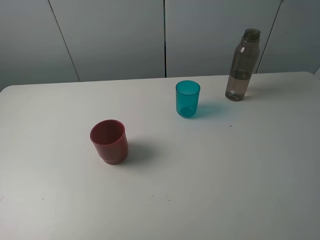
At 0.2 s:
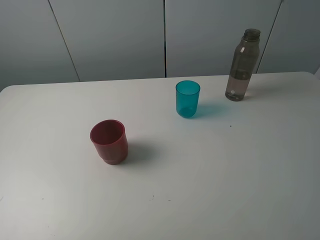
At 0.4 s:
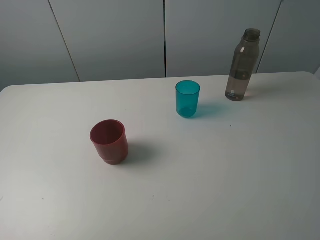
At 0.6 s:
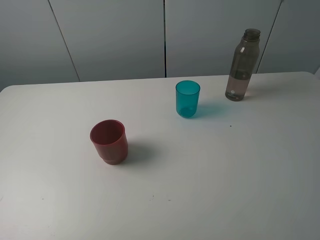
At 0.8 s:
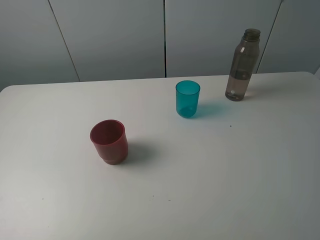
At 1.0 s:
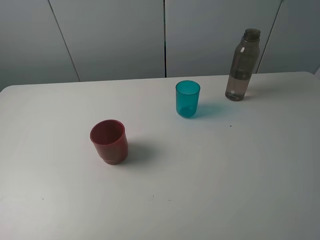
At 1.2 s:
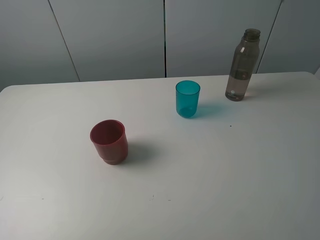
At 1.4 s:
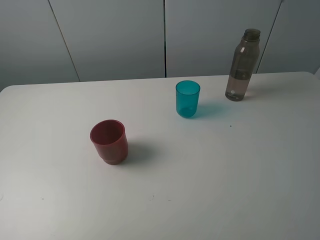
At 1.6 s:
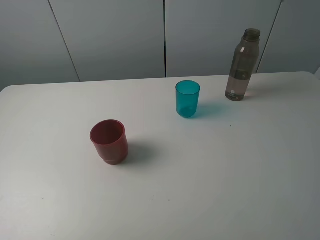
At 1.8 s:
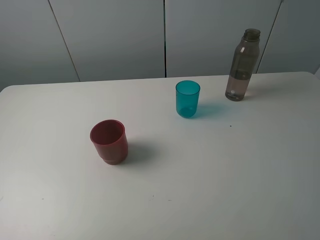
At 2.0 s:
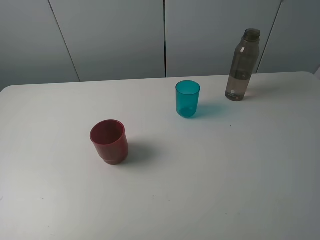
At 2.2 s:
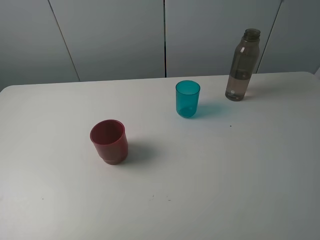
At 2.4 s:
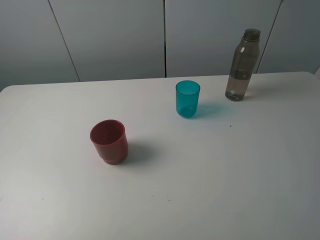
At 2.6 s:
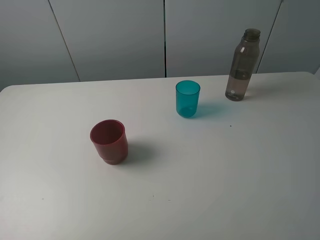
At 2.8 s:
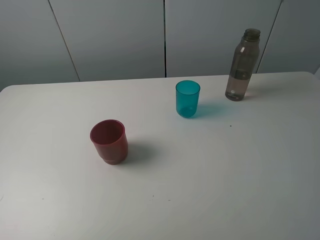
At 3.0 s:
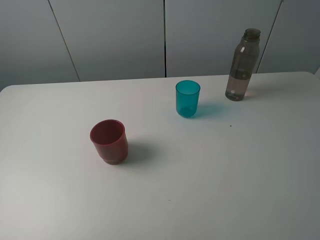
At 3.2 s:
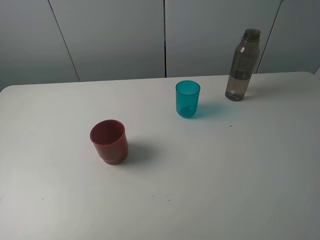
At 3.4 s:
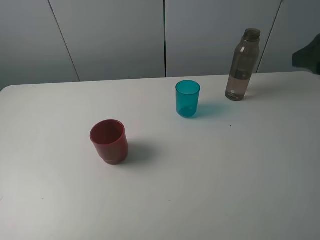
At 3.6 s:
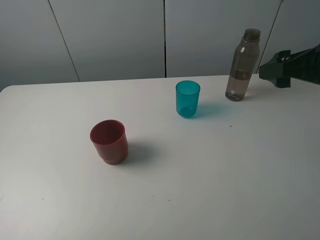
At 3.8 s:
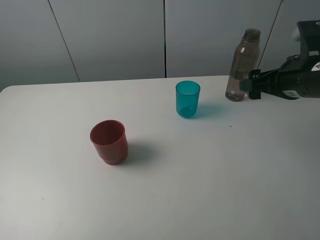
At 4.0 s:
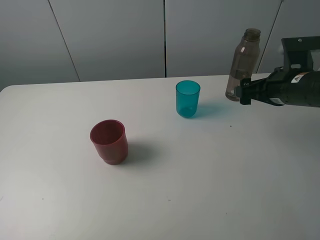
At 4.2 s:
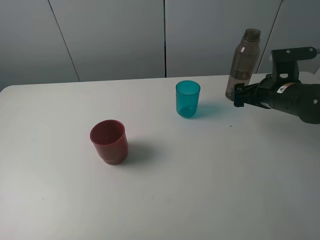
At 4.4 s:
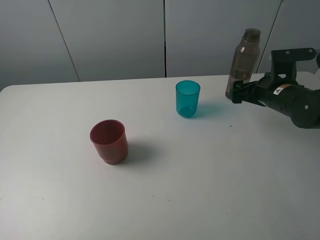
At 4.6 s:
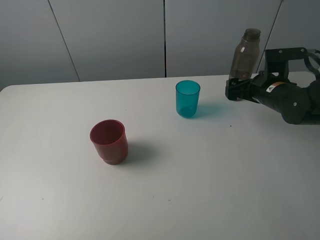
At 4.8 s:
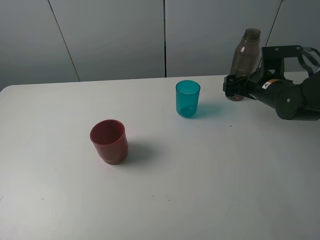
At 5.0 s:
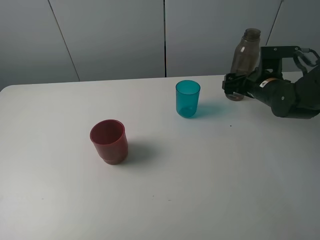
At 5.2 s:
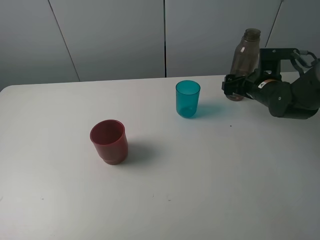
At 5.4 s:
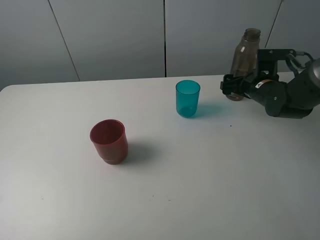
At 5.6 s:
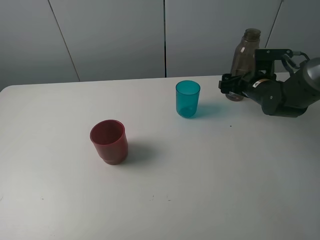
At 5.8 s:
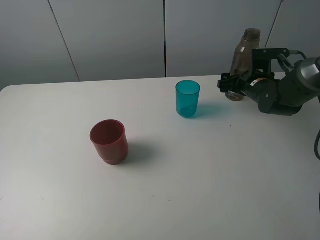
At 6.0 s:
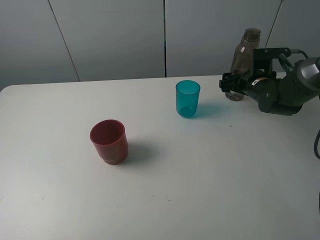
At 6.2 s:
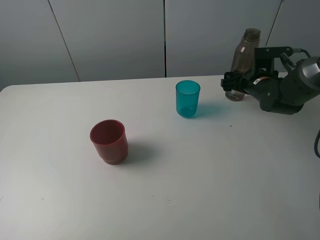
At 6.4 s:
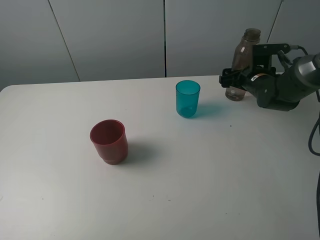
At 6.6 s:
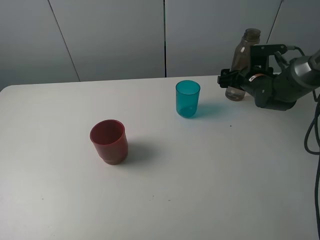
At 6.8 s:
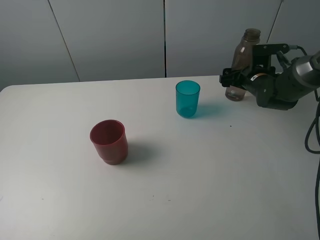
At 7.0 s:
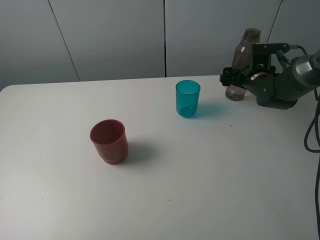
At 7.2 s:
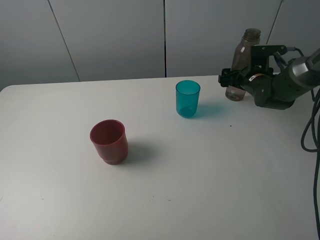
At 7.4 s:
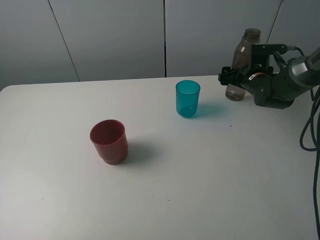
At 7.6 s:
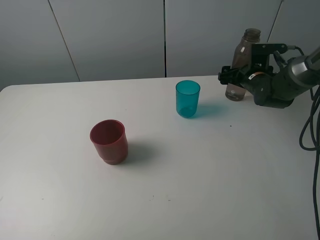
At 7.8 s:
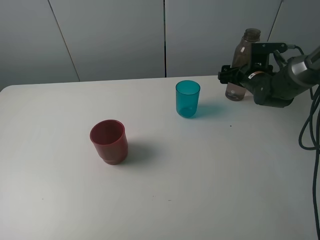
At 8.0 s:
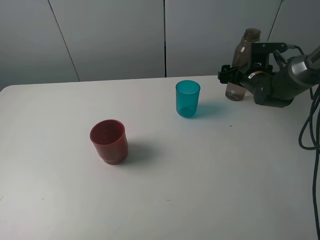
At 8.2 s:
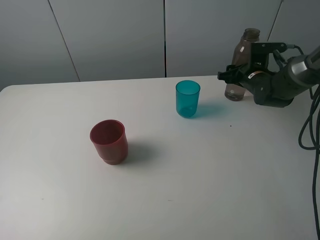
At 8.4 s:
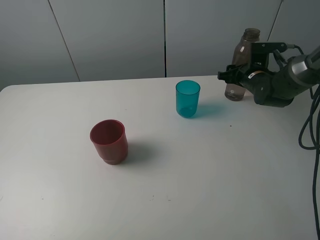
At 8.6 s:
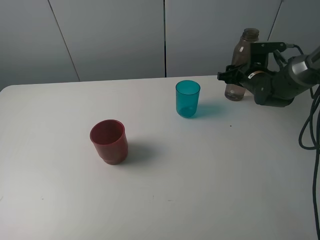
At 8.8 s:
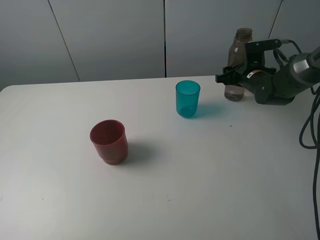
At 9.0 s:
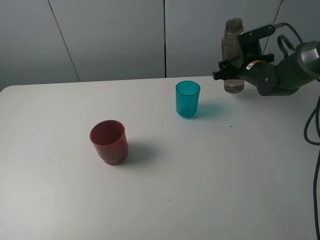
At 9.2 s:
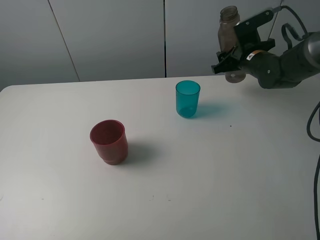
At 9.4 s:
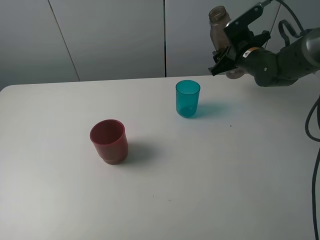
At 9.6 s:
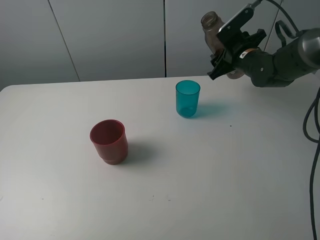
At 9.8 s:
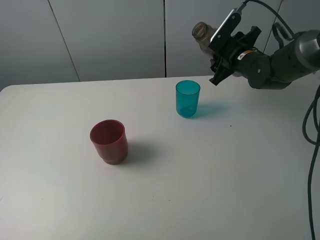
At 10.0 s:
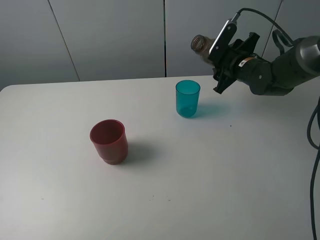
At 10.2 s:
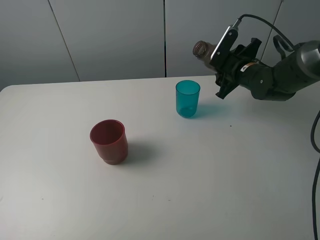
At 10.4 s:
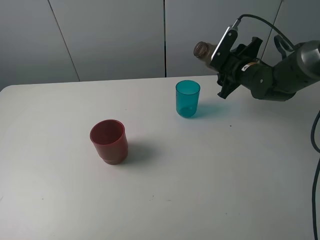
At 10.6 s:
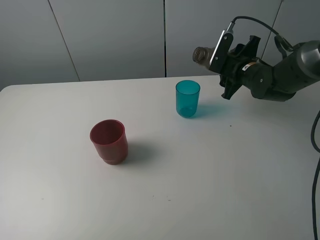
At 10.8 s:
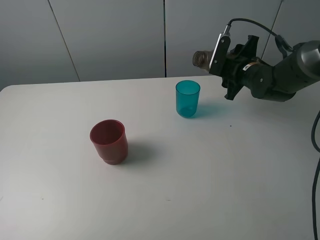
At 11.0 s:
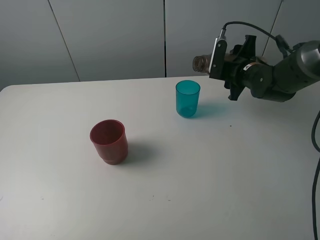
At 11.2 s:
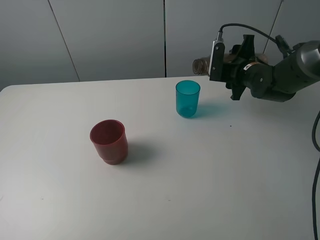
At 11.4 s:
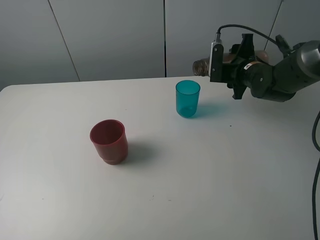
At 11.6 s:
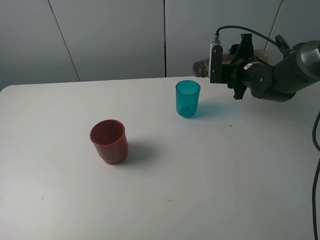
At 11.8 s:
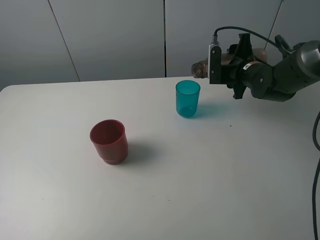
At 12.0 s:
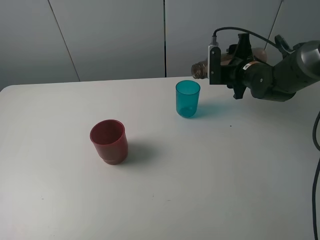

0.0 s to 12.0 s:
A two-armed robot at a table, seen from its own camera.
Task of the whole recording: pick up the bottle and pour water into the cup, then pick up the cup containing water and pour it into another cup.
Step, 0.0 to 8.4 s: Grasp the brown bottle with the right gripper.
0.0 to 1.6 s: Both grippers stay put.
3.0 to 4.4 s: The right gripper travels downward and forward by approximately 30 cm.
4.4 to 6.0 s: The right gripper shifts about 5 cm forward.
6.0 to 7.6 s: The grippers stay close to where they were, moving slightly.
7.6 to 9.0 s: The right gripper closes its fingers.

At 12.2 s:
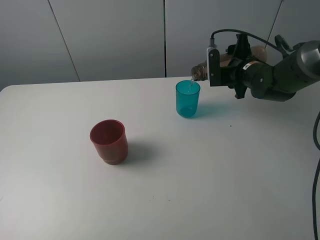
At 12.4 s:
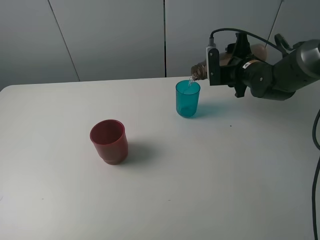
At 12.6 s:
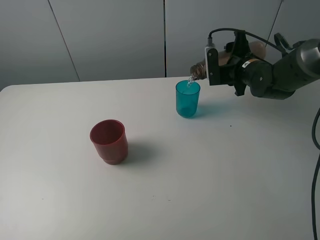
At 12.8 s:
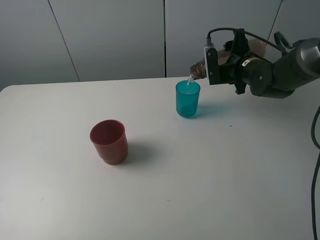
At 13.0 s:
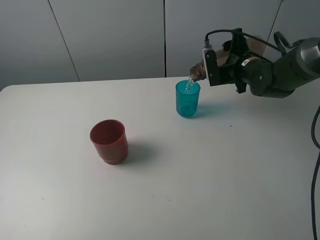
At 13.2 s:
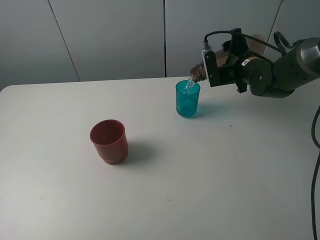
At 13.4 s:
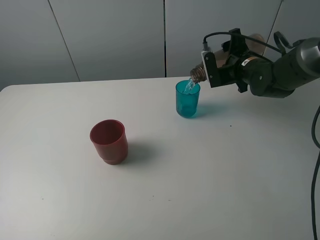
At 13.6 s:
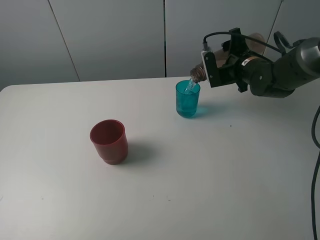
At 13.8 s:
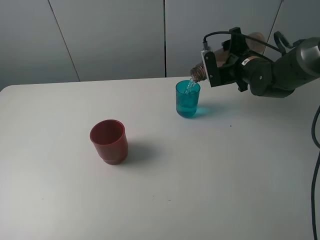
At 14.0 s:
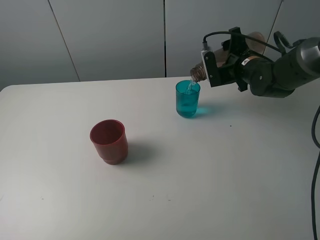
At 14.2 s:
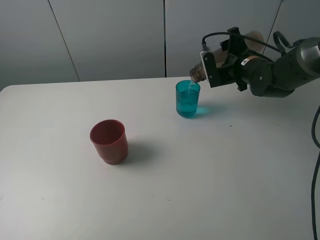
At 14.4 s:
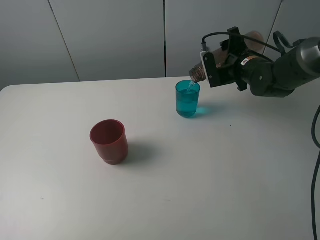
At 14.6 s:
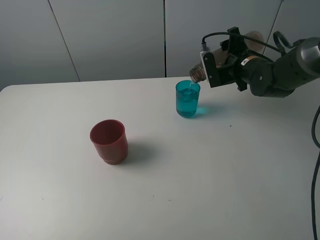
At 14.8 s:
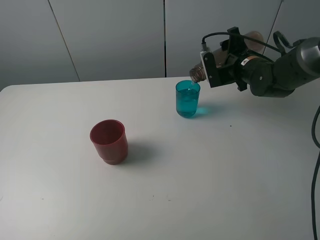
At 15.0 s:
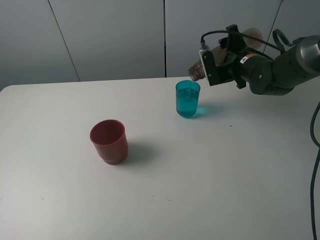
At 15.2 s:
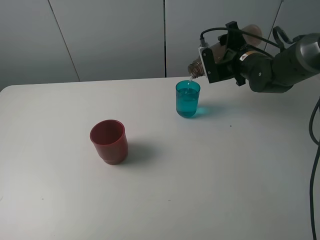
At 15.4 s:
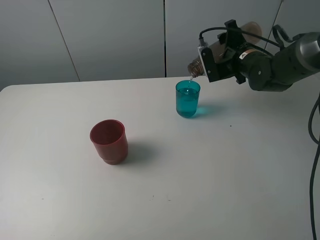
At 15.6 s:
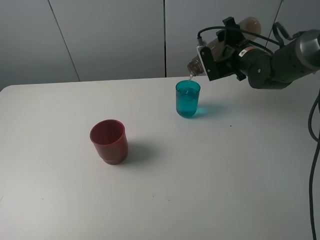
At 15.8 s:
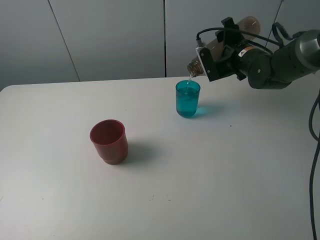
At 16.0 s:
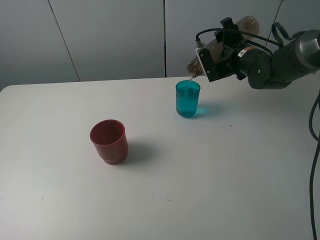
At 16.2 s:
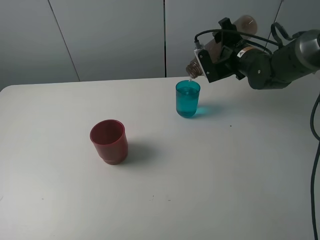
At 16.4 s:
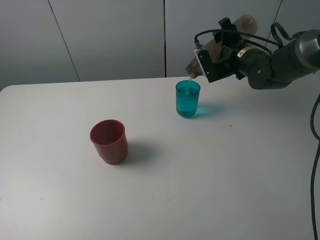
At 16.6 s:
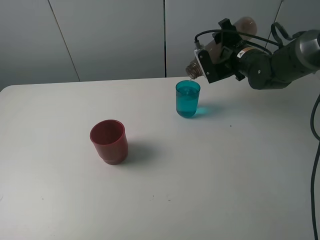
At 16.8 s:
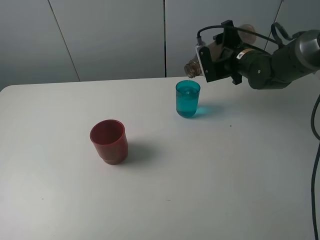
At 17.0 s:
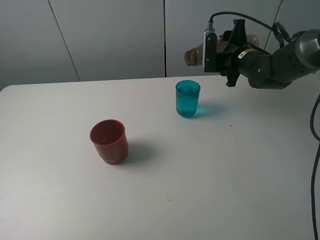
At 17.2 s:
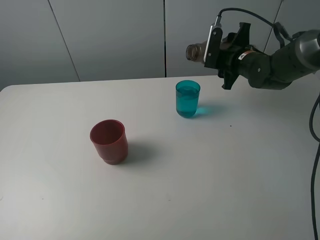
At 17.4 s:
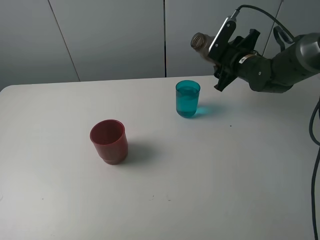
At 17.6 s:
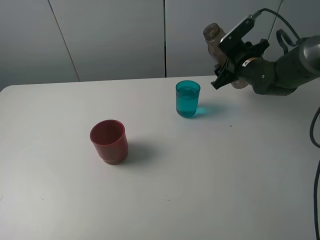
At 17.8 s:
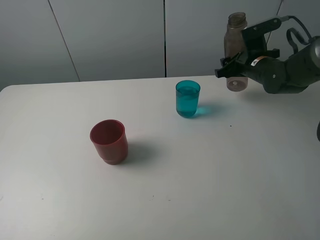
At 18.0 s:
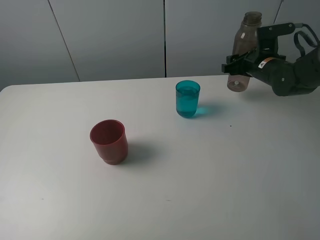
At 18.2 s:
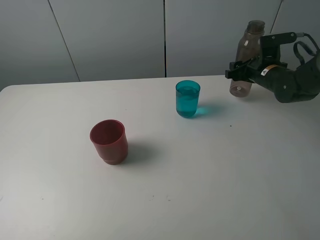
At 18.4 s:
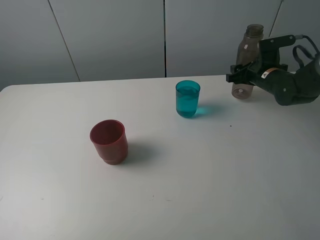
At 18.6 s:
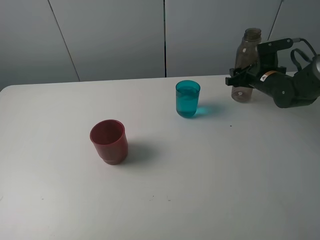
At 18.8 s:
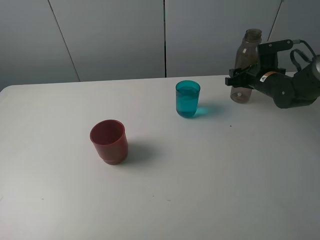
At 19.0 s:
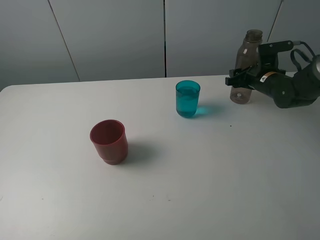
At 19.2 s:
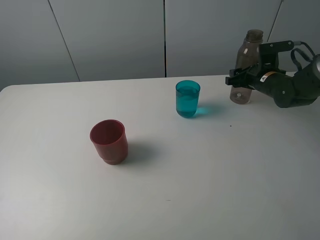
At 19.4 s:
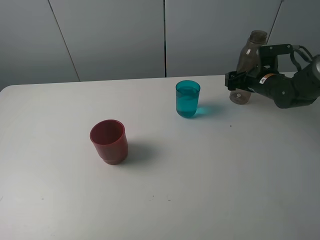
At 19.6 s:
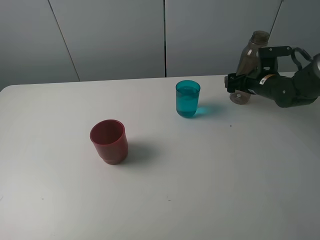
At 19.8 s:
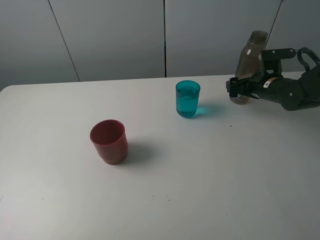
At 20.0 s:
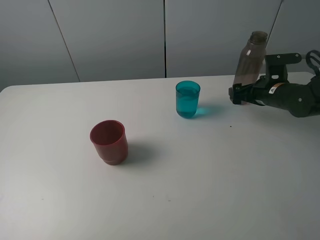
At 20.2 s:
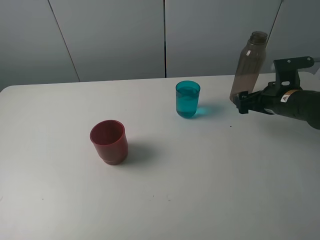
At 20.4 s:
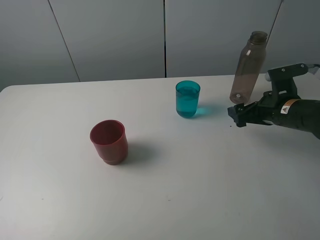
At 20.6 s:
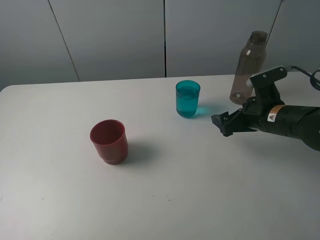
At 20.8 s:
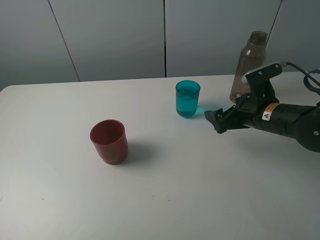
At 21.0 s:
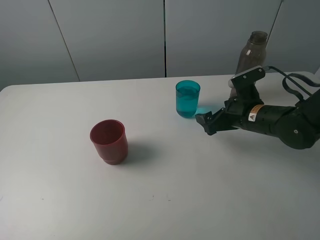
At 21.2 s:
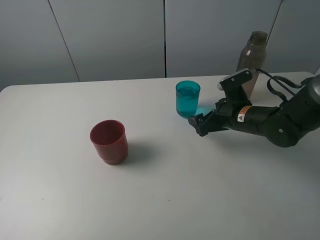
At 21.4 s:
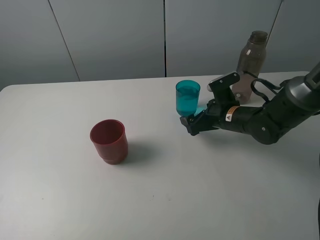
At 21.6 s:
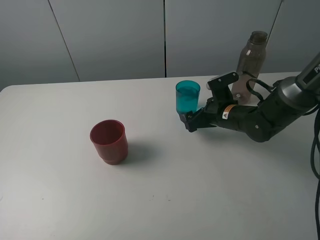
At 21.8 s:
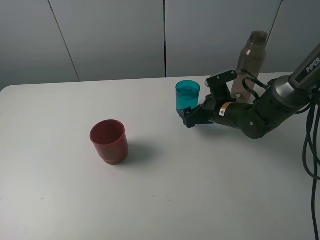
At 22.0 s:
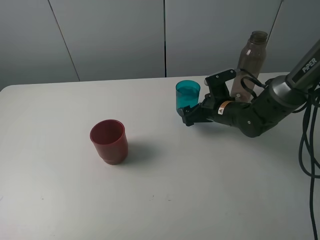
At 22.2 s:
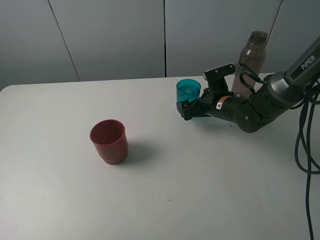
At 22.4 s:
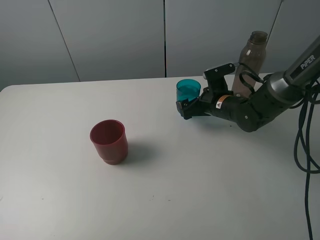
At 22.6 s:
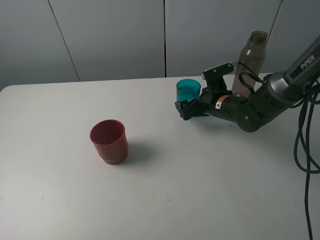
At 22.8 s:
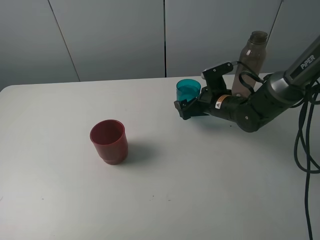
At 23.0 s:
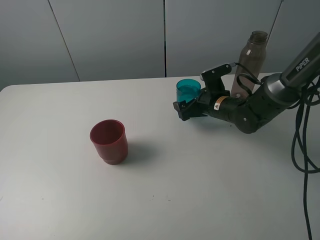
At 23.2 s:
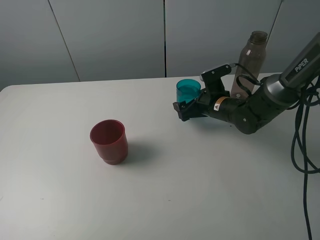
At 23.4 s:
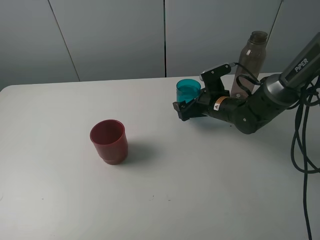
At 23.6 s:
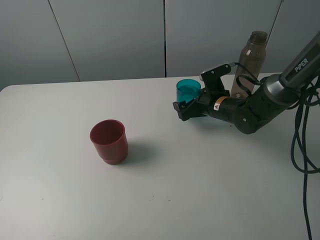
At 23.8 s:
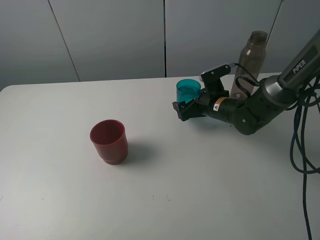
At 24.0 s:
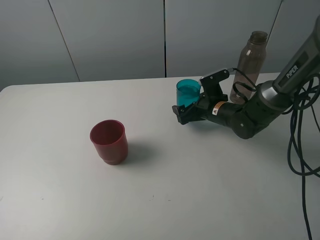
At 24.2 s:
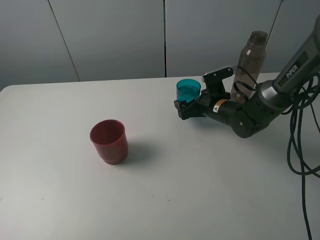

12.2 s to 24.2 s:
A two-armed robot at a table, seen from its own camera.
Task of the whole recording: pick up the bottle and pour water into the cup, then pick up the cup containing water and pour it into another cup.
Step, 12.2 to 16.8 s: Pour water from brown bottle to blue cup with the right gripper.
Step, 17.0 to 20.2 s: Place the brown bottle with the right gripper.
12.2 to 13.8 s: There are only small adjustments of the grippers.
13.8 to 15.2 s: Both grippers stay put.
15.2 to 16.6 s: There are only small adjustments of the grippers.
16.6 to 18.2 s: The right gripper heads to the right, covering approximately 5 cm.
18.2 to 19.8 s: The right gripper opens its fingers.
19.8 to 21.2 s: The right gripper heads to the left and backward, covering approximately 10 cm.
21.2 to 22.6 s: The right gripper goes approximately 5 cm forward.
22.6 to 24.2 s: The grippers make only small movements.
